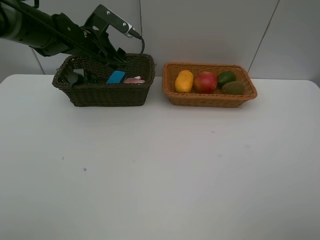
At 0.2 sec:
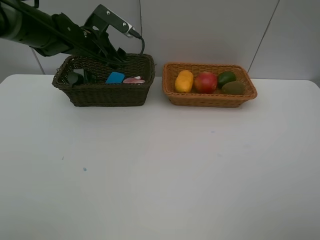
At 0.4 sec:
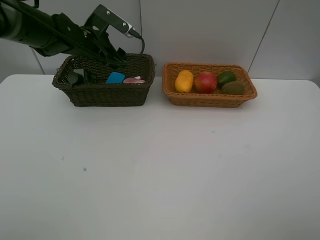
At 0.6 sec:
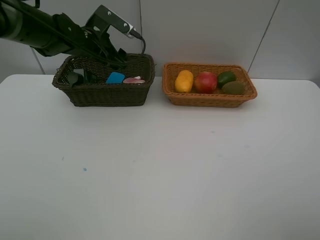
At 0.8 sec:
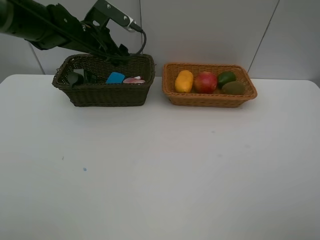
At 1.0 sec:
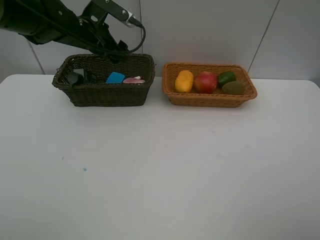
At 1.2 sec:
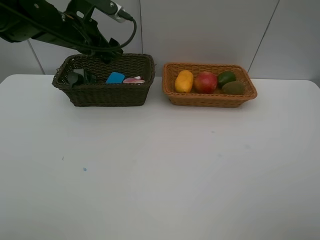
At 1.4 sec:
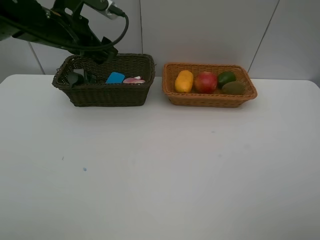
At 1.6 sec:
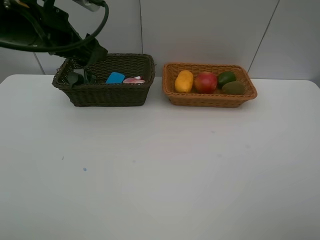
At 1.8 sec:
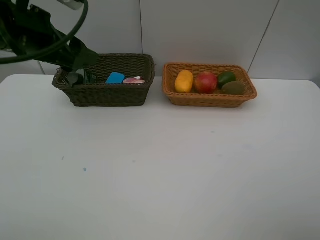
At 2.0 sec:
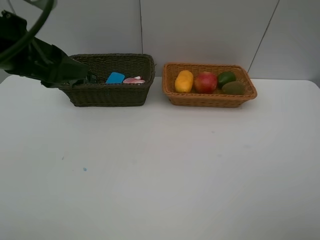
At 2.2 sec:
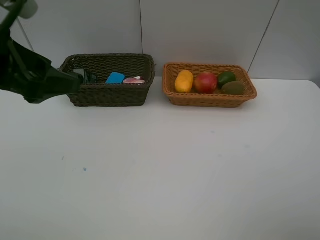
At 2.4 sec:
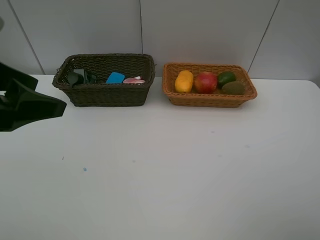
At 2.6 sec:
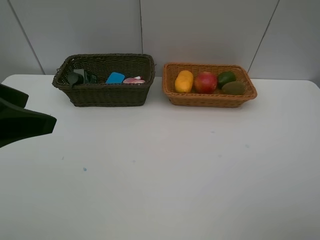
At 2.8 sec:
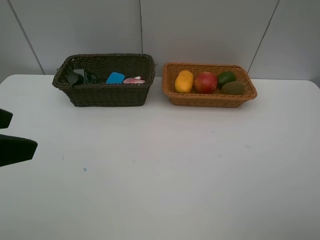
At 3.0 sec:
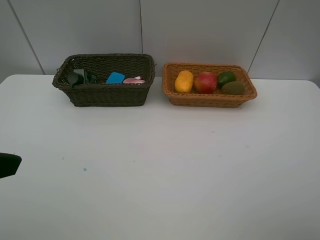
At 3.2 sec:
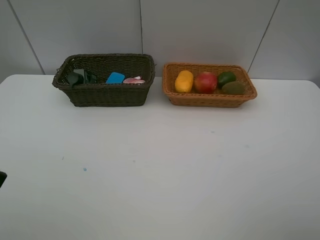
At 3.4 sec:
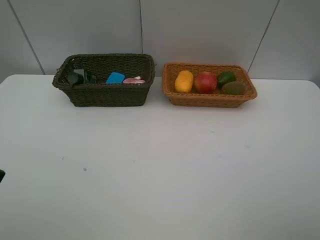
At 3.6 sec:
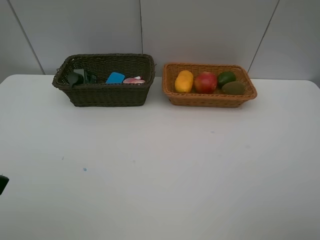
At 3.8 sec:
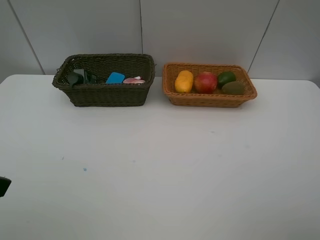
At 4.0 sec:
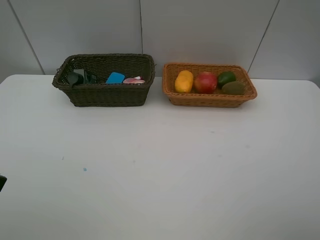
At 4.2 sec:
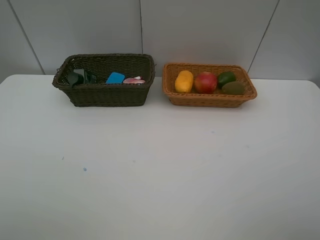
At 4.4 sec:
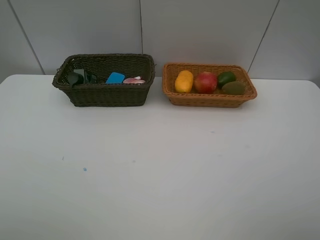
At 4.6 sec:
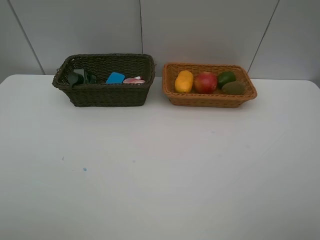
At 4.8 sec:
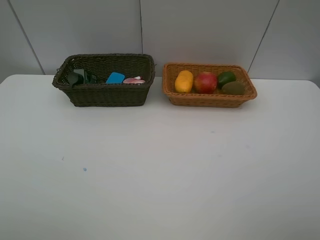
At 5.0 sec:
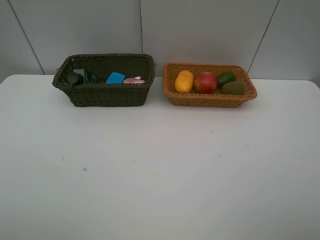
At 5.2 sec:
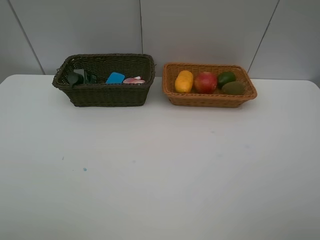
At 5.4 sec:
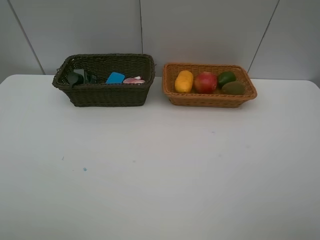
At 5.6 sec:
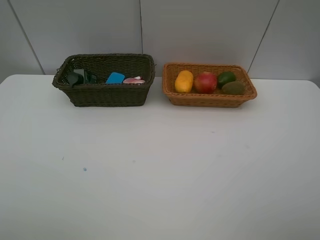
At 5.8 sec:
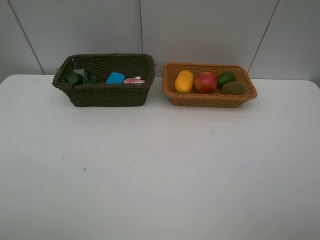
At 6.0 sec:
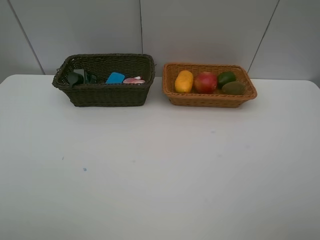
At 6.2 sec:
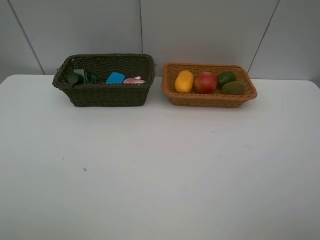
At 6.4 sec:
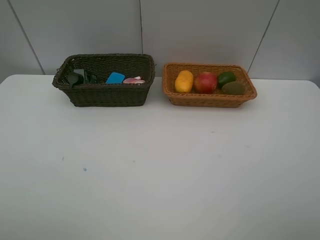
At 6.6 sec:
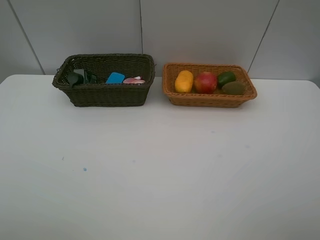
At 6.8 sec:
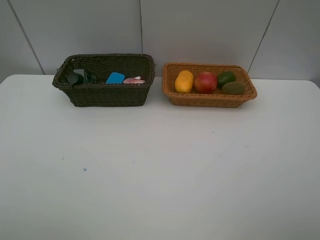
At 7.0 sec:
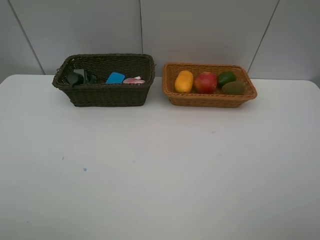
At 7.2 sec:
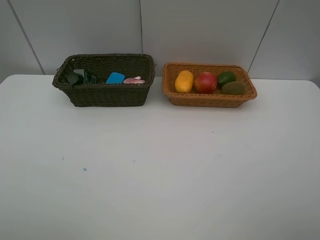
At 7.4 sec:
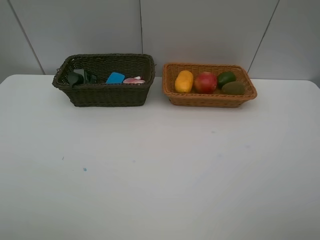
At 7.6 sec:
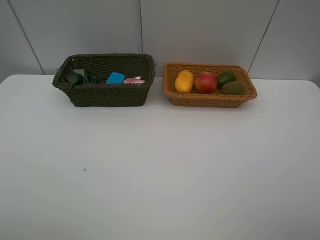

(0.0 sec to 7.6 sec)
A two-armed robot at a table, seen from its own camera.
Task of the whole recording: Place multiple objects separately in different baskets.
0.0 sec - 1.6 sec: The left gripper travels backward and upward by about 15 cm.
1.6 sec - 3.0 sec: The left gripper is displaced backward by about 20 cm.
6.0 sec - 7.6 sec: Neither gripper changes place.
